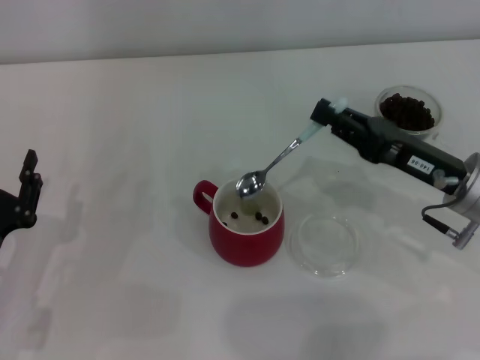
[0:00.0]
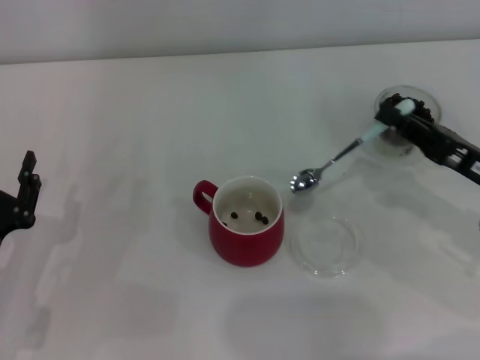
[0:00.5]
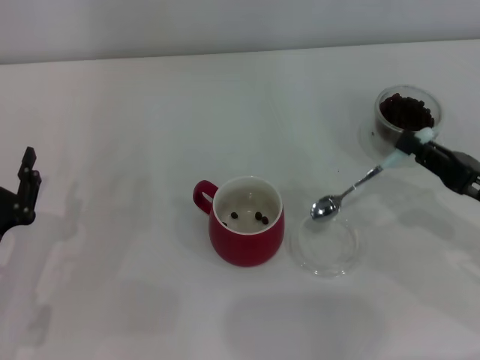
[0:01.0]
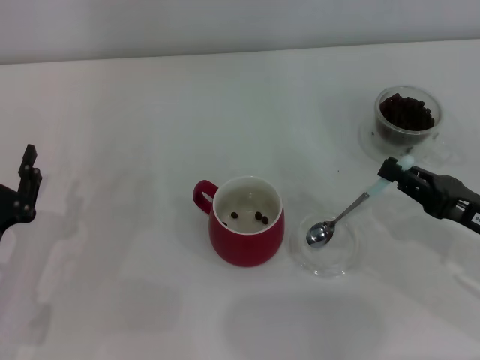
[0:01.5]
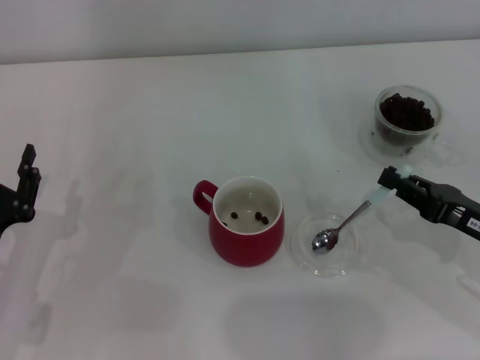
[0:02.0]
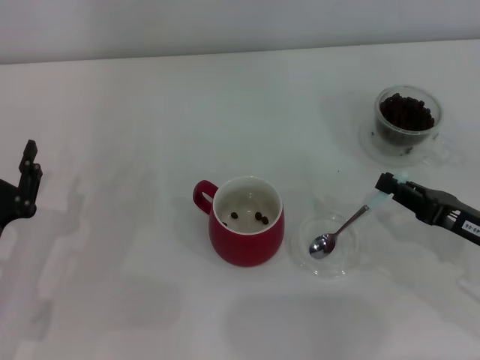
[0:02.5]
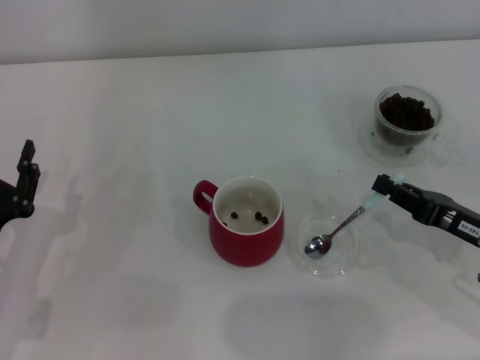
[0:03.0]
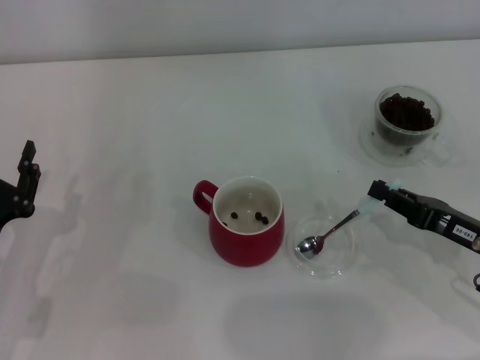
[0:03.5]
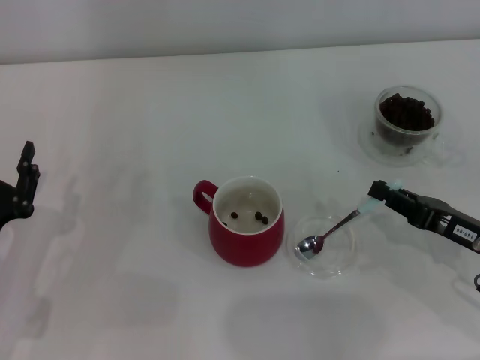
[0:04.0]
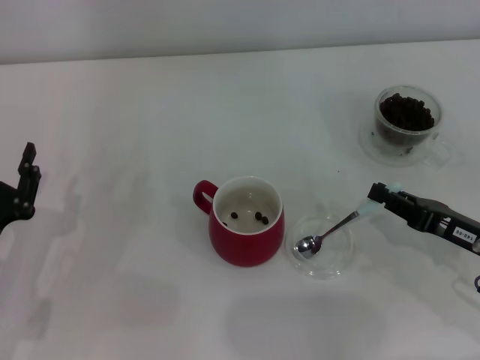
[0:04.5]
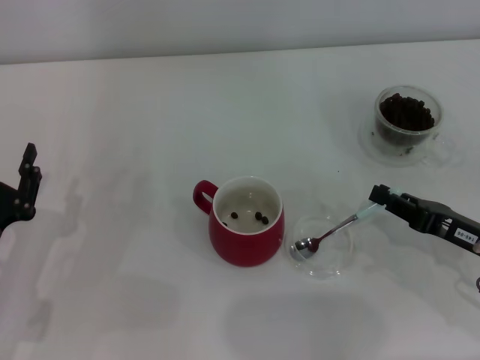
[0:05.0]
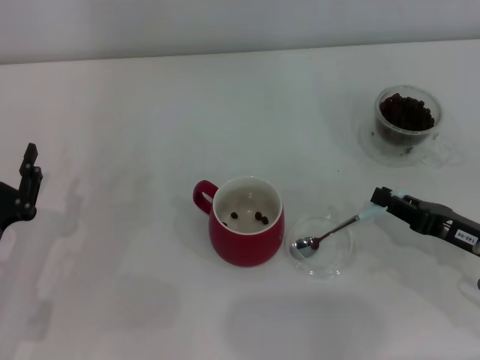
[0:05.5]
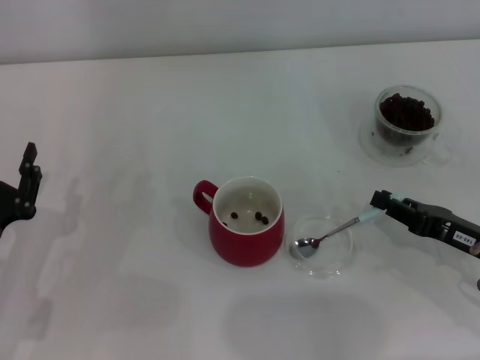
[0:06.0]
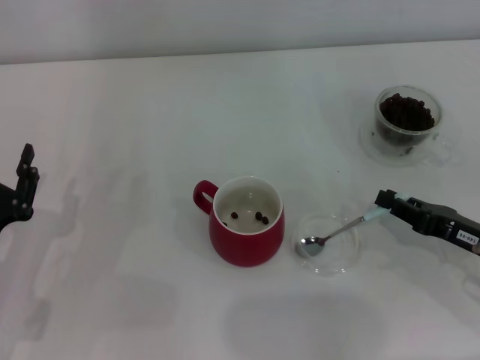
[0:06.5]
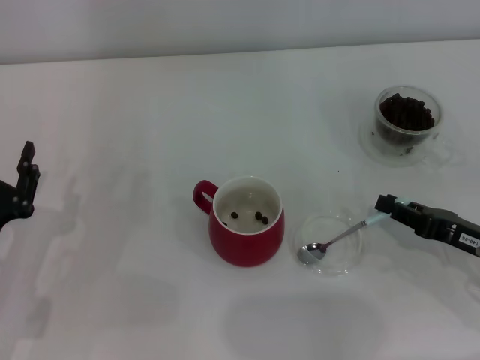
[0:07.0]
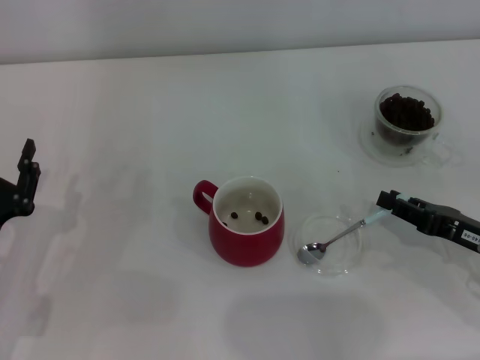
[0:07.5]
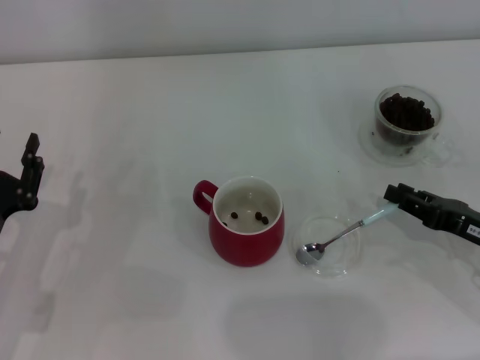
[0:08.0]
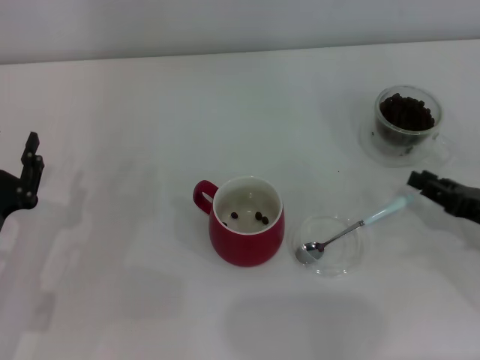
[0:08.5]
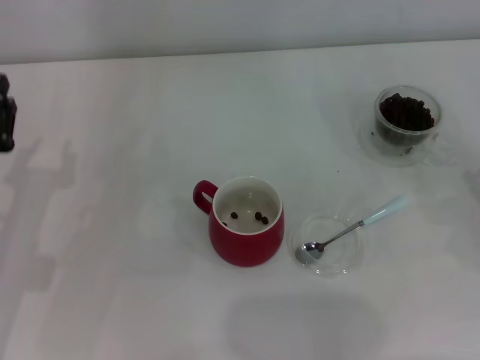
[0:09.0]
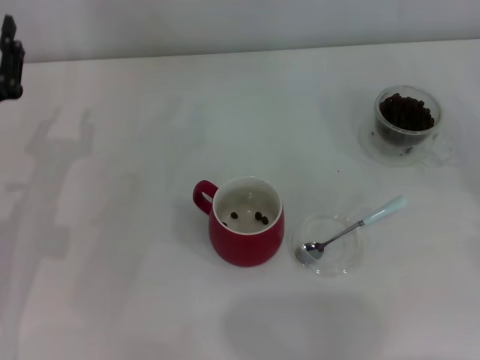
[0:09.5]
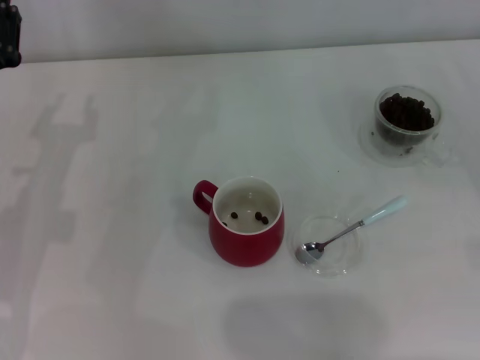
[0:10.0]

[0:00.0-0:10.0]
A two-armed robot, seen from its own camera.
Task of the whole recording: Use a blue spoon to take out the coffee beans from the glass and pour them into the red cup.
Step, 0:00.5 to 0:08.5: Place the spoon back in its original place with the right gripper.
0:00.0 to 0:02.0: The right gripper heads to the right and backward, covering roughly 10 cm.
0:02.0 to 0:08.0: The grippers make only small movements.
0:08.0 to 0:10.0: The left gripper moves forward and upward, about 10 cm. The right gripper shifts approximately 15 cm to the right and upward.

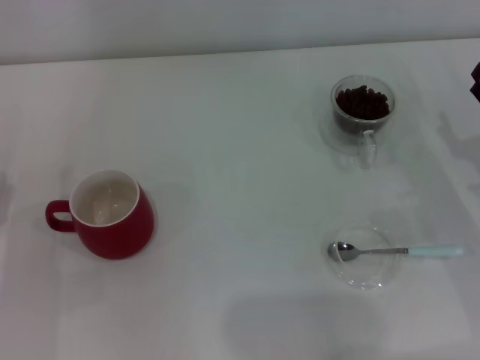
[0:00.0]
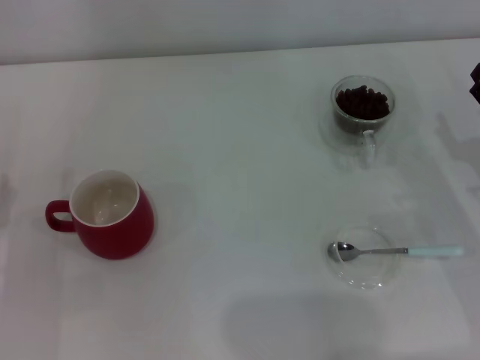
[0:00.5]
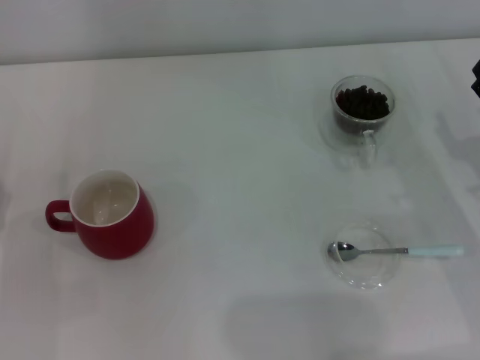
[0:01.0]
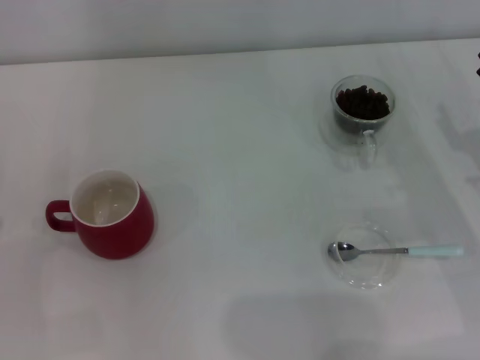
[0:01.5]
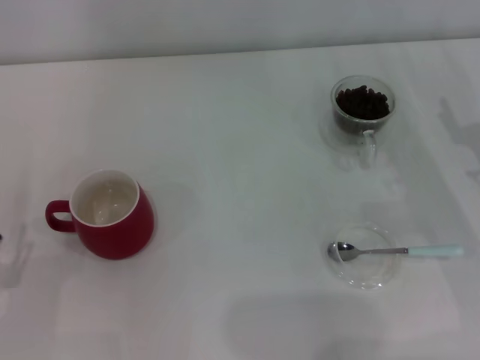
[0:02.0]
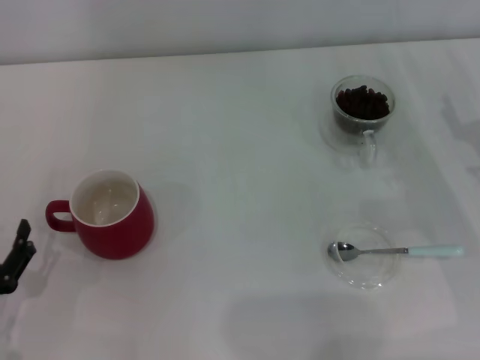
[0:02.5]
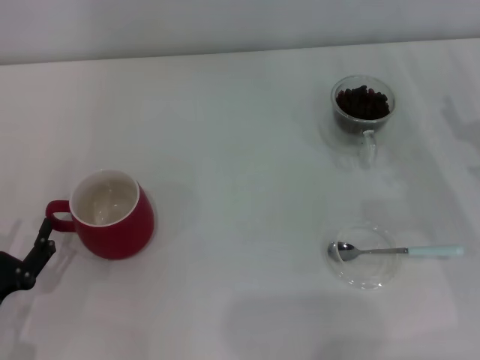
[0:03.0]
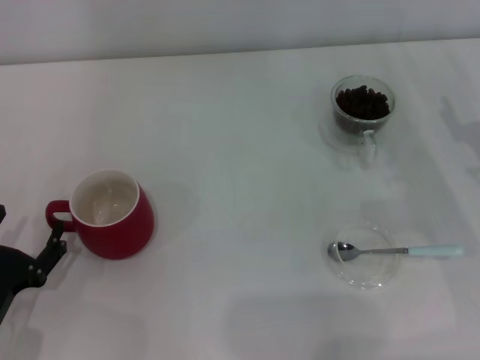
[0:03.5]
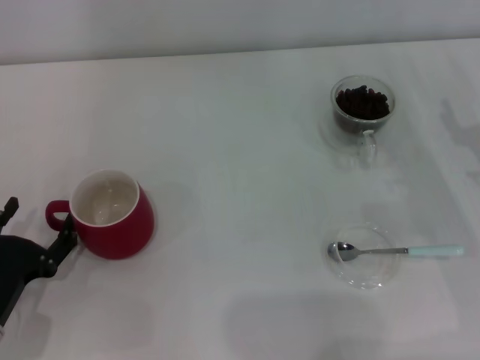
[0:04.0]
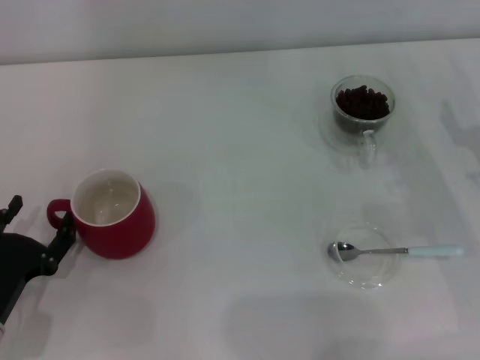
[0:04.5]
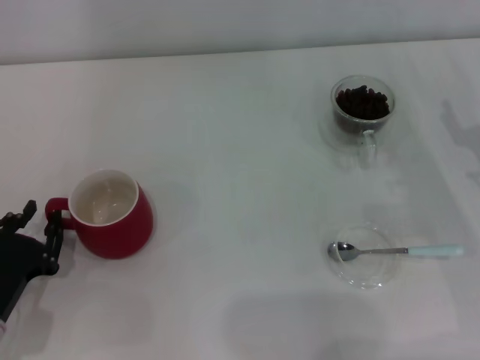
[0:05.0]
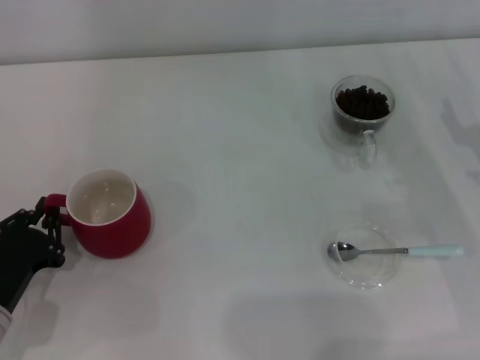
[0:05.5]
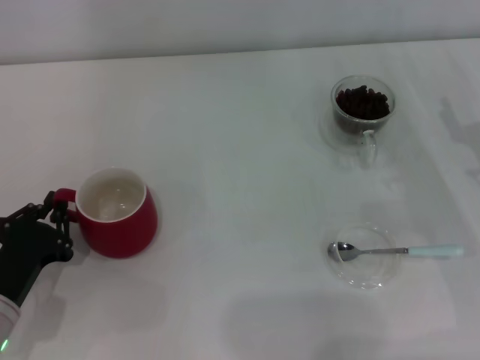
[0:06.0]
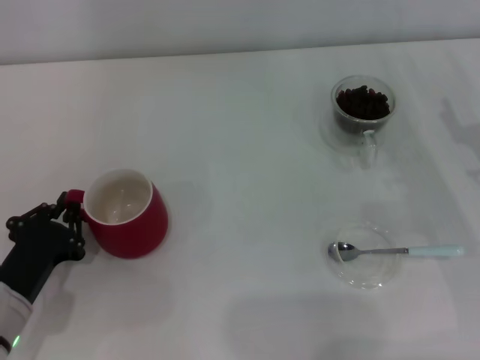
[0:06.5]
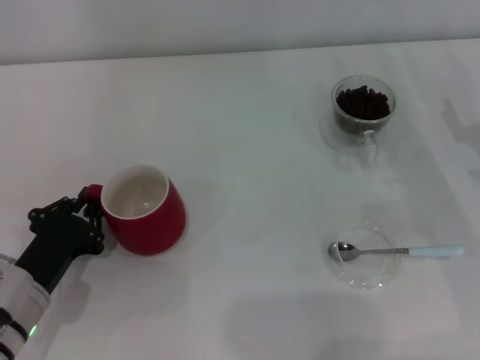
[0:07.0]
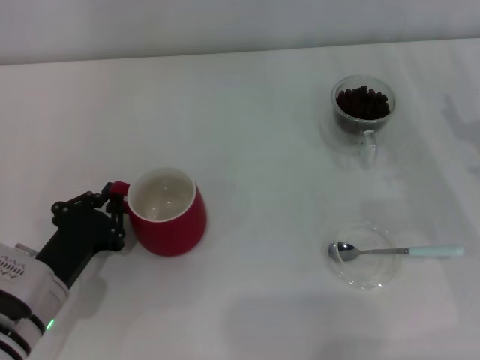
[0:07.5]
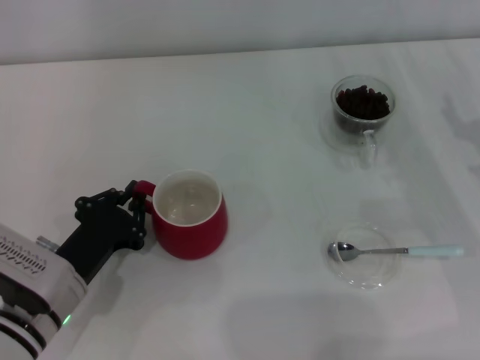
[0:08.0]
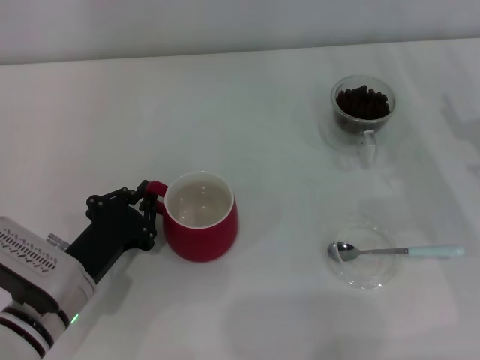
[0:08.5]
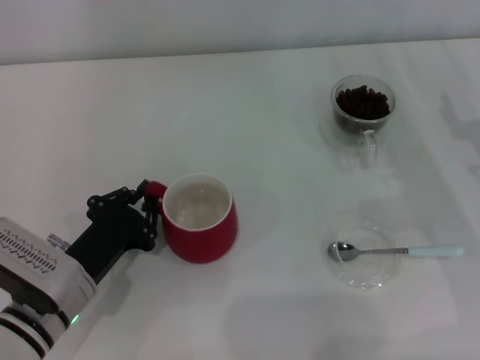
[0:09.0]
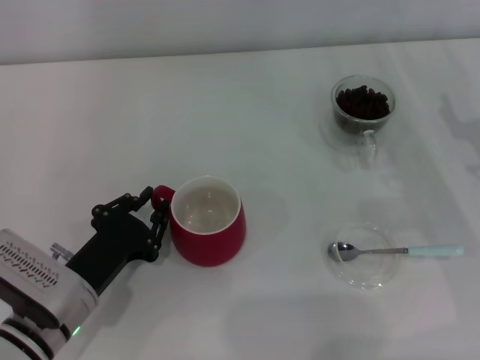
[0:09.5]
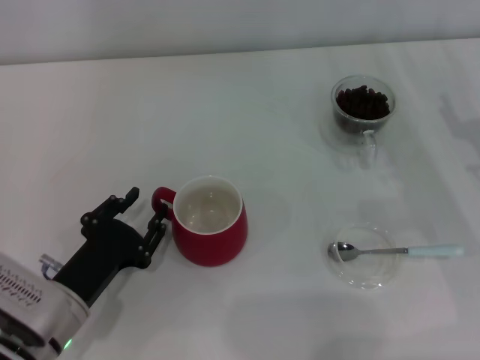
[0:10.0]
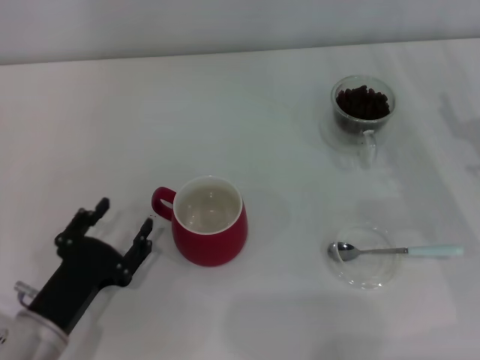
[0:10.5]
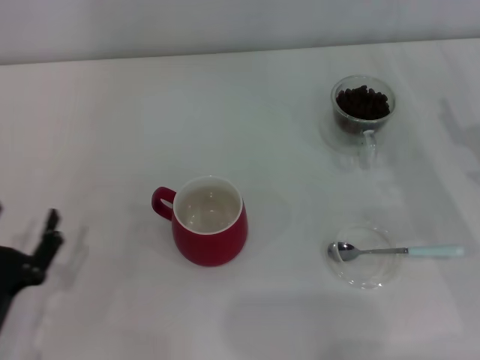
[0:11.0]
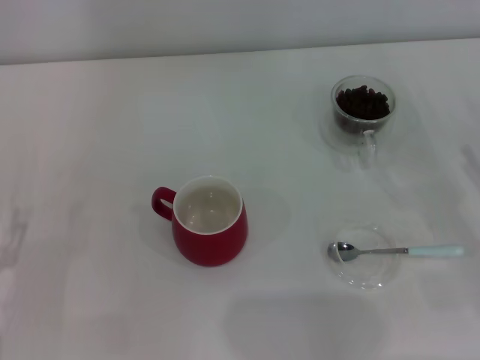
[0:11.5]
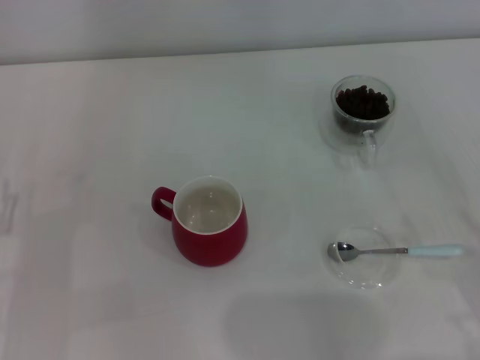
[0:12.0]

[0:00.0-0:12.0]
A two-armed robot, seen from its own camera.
Task of the whole recording: Use a blue spoon to take out the coffee beans from the glass and pour them into the red cup.
Step, 0:00.0 to 0:10.5: Move the cup to the center of view with the left gripper.
0:02.0 to 0:04.0: The grippers make only small movements.
0:04.0 to 0:06.0: The left gripper closes up.
0:06.0 to 0:08.0: The left gripper is displaced to the right by about 5 cm.
0:08.0 to 0:10.0: The left gripper opens its fingers.
0:10.0 to 0:12.0: The left gripper heads to the left, covering about 10 cm, and opens its fingers.

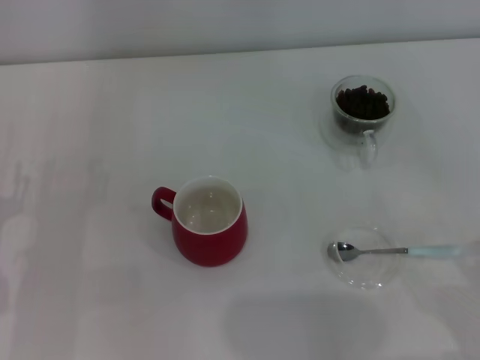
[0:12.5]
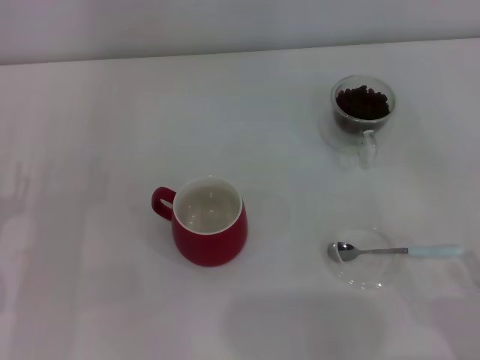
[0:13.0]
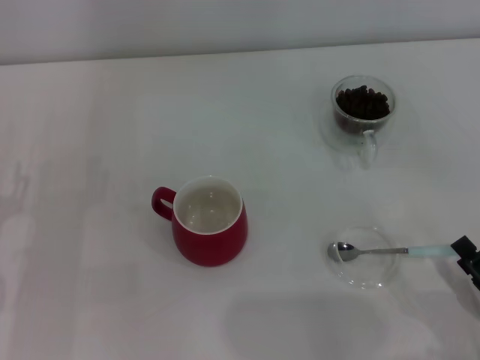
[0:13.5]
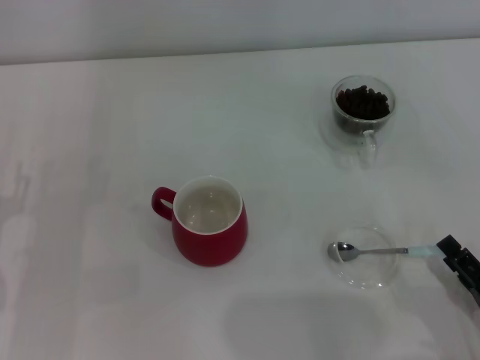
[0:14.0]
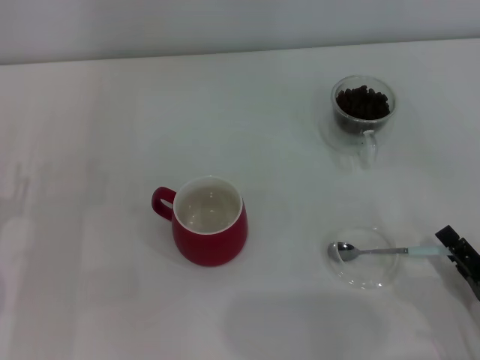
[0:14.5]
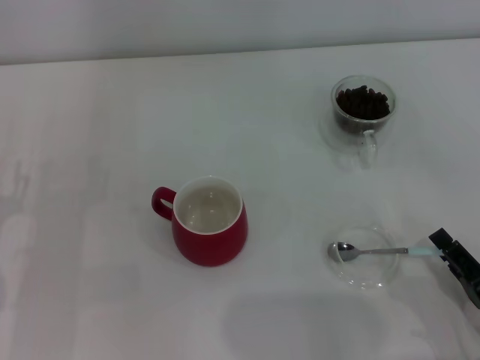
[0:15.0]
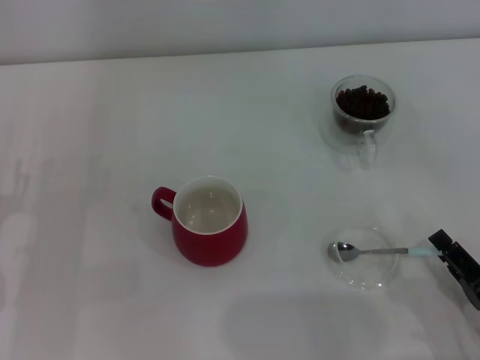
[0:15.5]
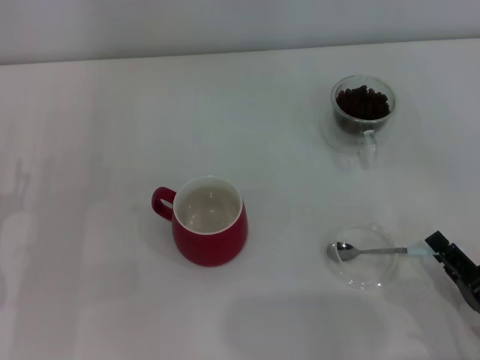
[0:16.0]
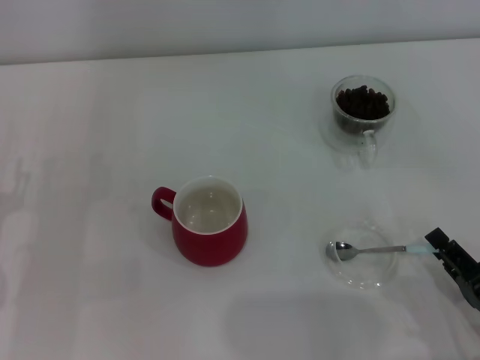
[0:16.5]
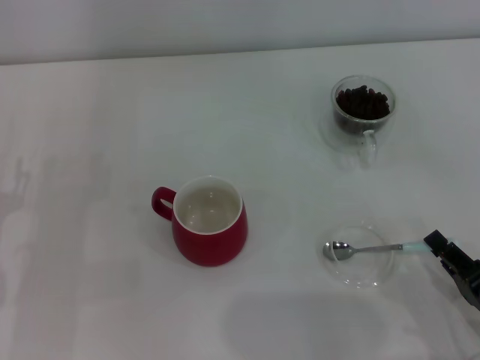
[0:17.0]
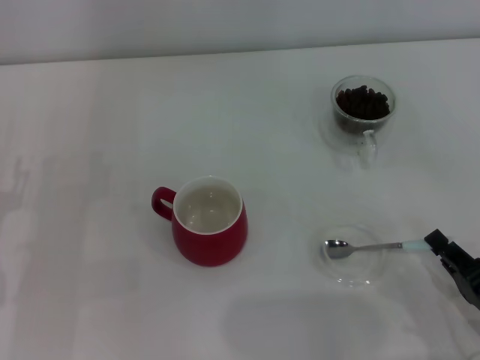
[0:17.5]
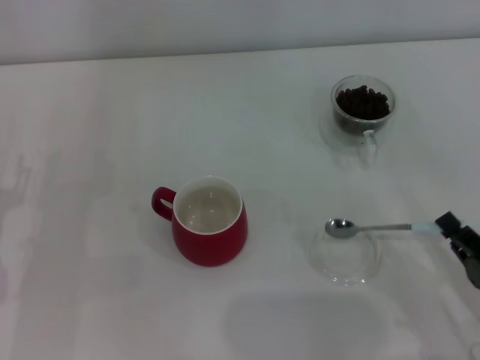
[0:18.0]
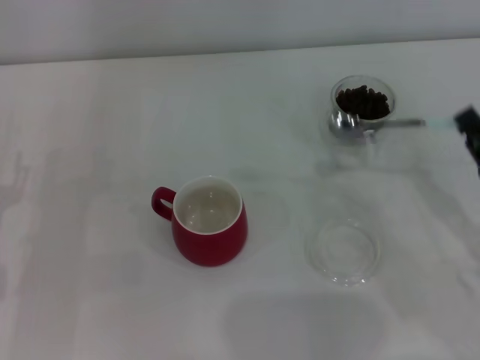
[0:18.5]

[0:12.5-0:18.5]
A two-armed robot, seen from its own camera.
Task of the whole recording: Use a blue spoon to take out the coffee beans from the glass and pour them into the red cup.
Step, 0:12.5 to 0:18.0: Pick up the spoon with the right gripper.
0:12.5 to 0:14.5: The right gripper shifts by about 5 cm.
0:14.5 to 0:16.5: The two grippers keep their place.
0:16.5 to 0:18.5: The right gripper goes about 10 cm forward and upward, and closes.
